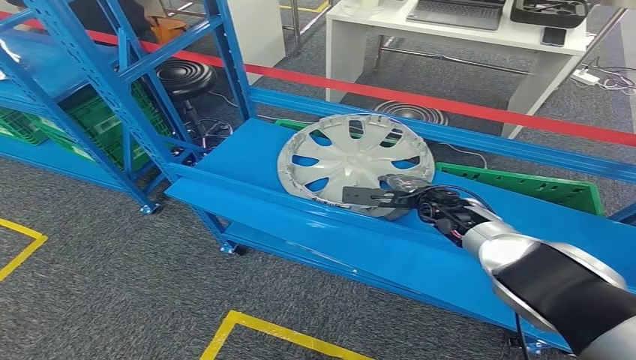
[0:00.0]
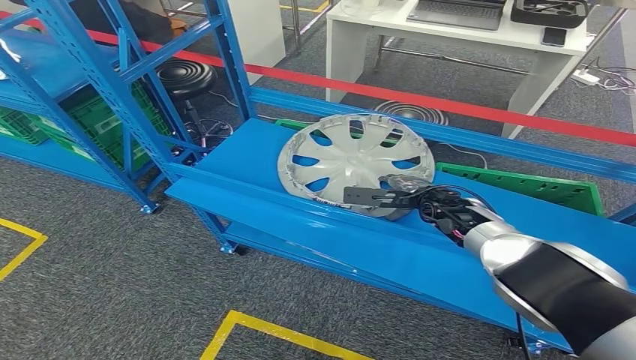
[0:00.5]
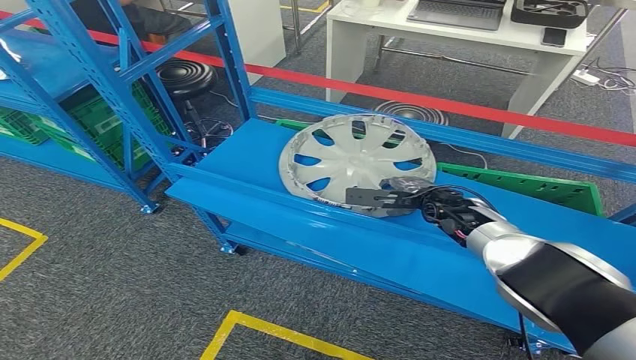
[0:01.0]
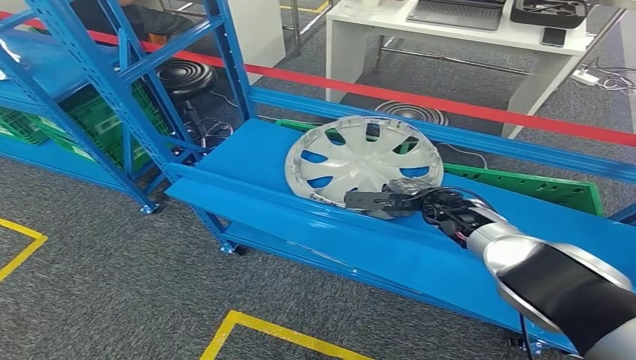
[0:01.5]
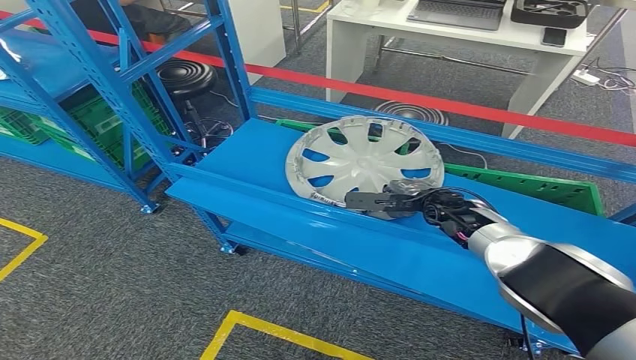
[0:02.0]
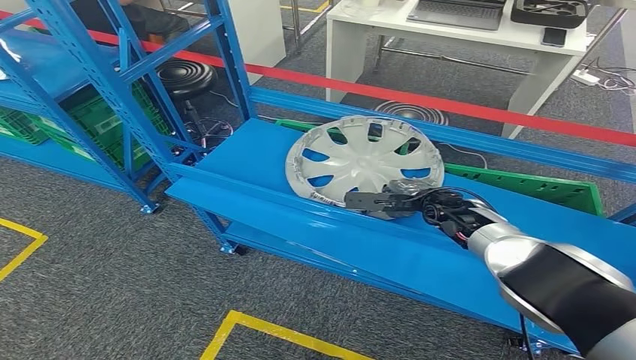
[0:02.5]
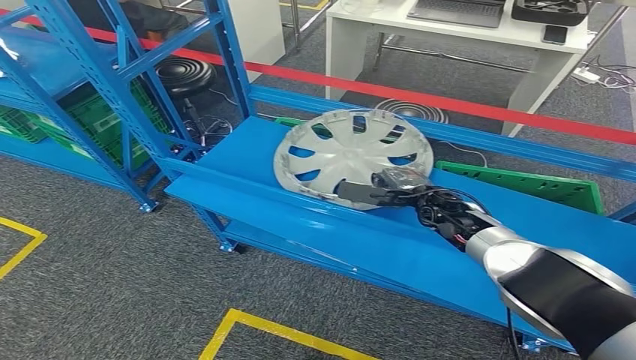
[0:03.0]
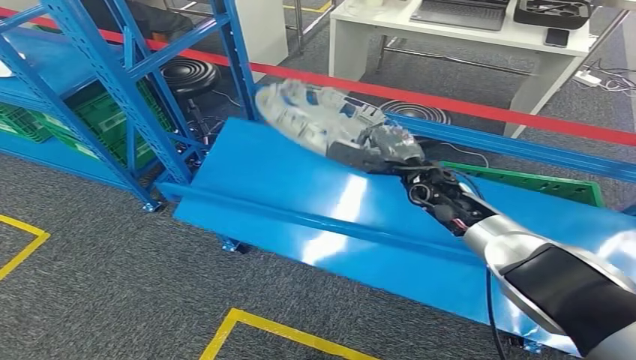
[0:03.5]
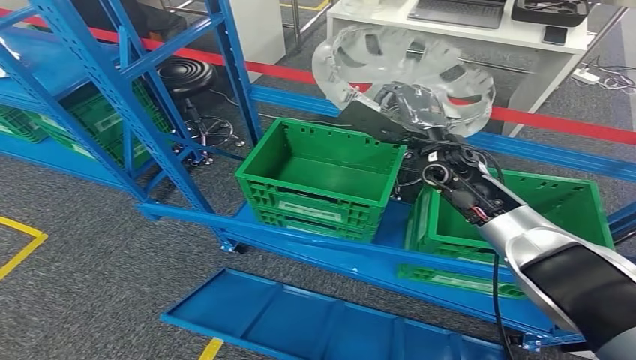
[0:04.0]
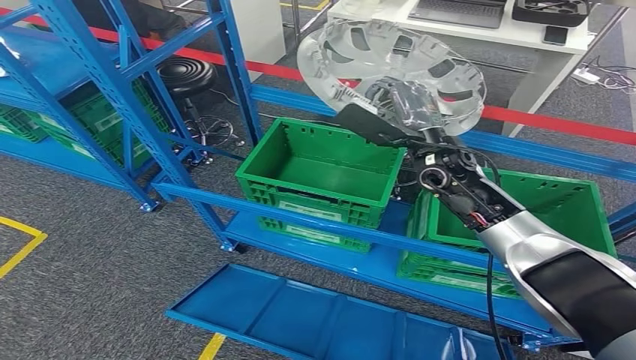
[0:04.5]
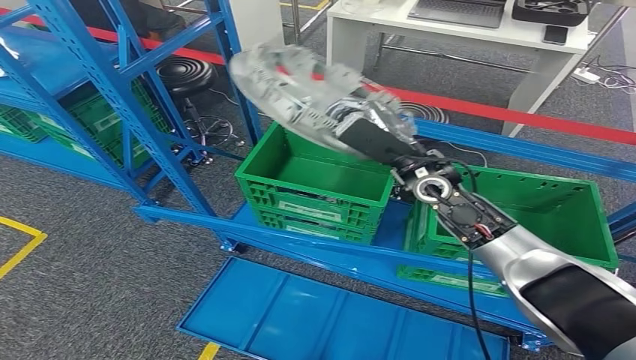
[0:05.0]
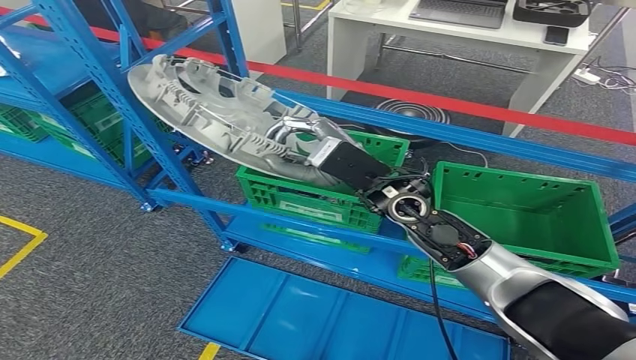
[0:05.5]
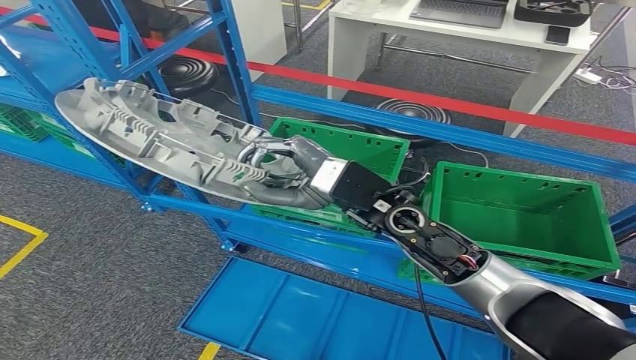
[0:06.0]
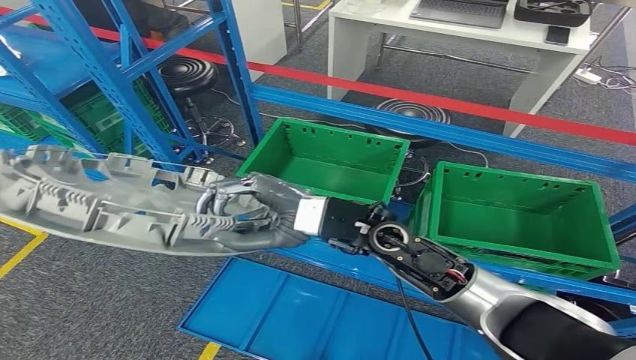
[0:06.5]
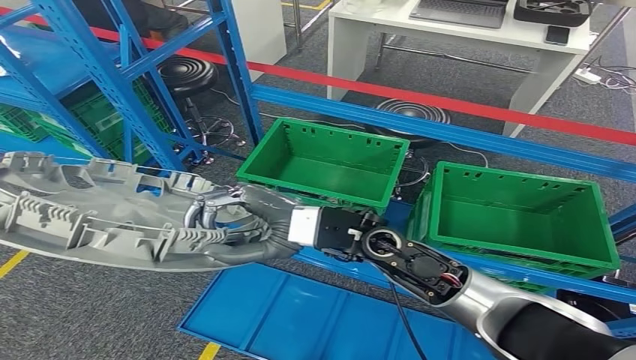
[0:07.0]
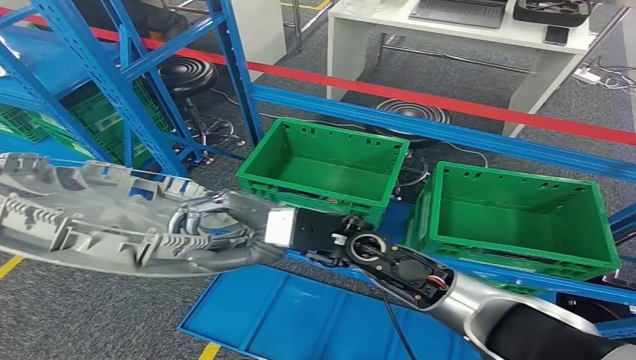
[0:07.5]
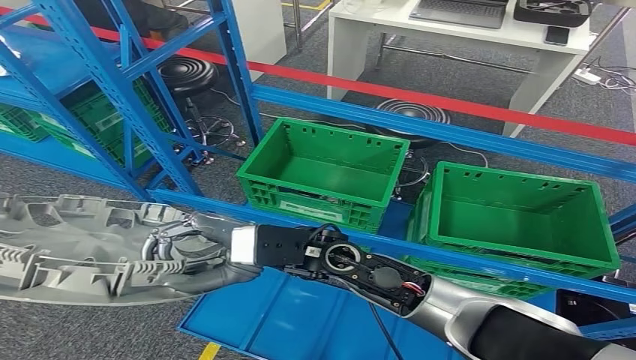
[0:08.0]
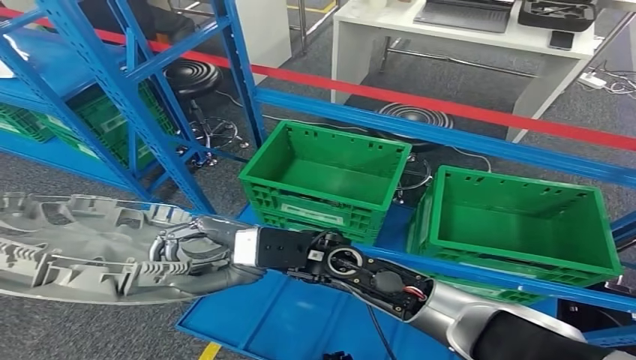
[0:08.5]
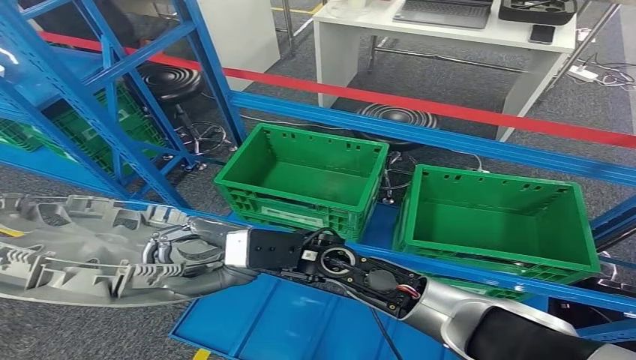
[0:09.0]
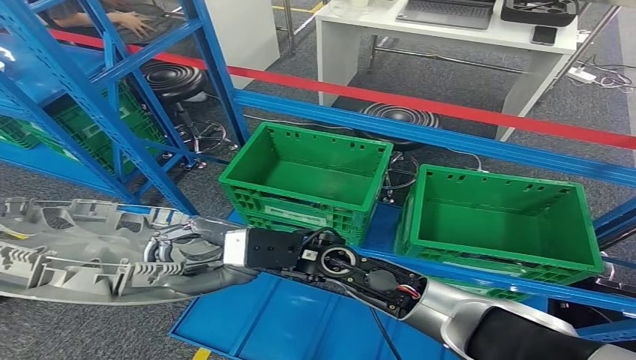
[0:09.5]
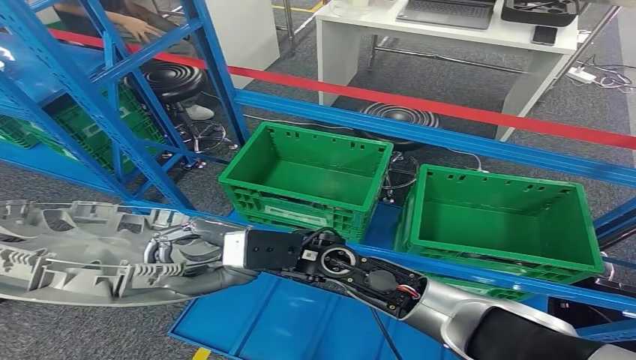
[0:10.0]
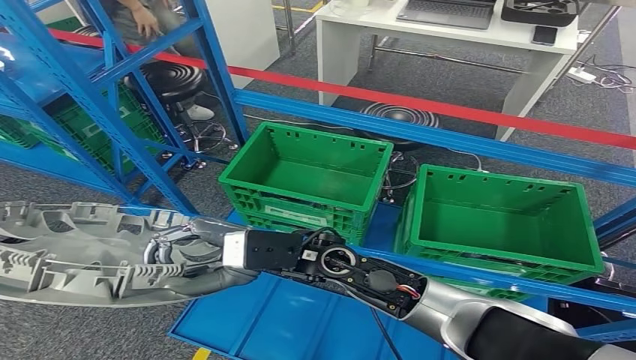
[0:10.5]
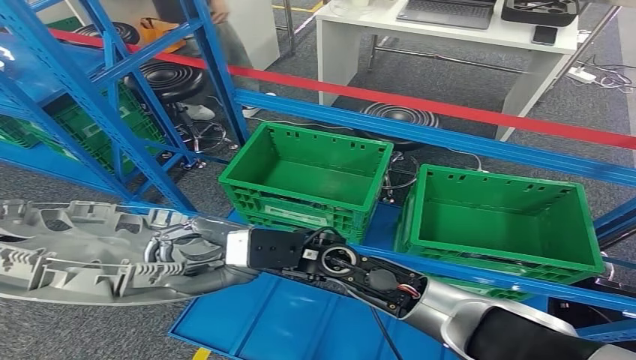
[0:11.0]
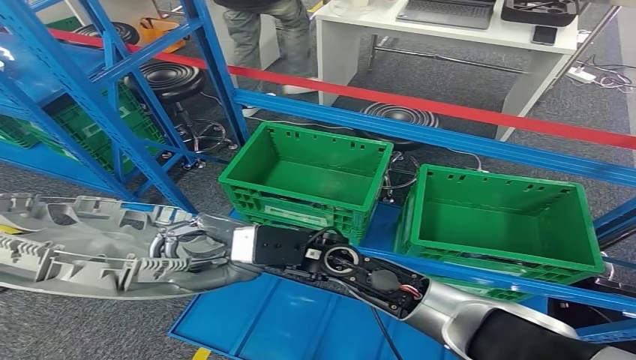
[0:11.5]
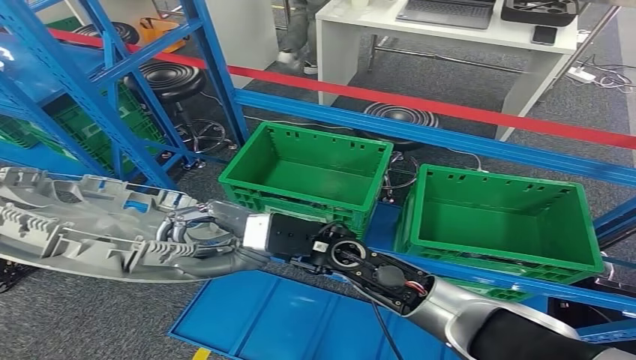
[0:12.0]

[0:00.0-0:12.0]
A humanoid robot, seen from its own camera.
Step, 0:00.0 to 0:08.0: Pick up the small component from the shelf.
0:00.0 to 0:02.0: The two hands keep their place.
0:10.0 to 0:12.0: The hands move only a little.

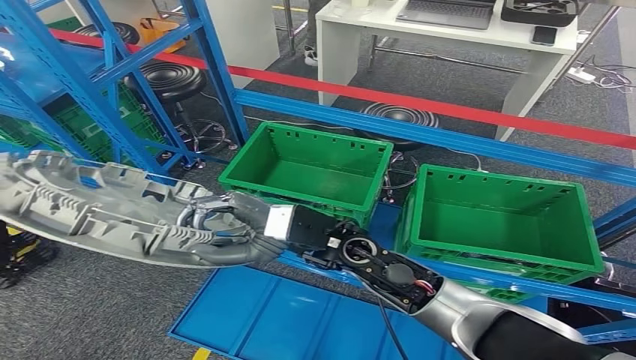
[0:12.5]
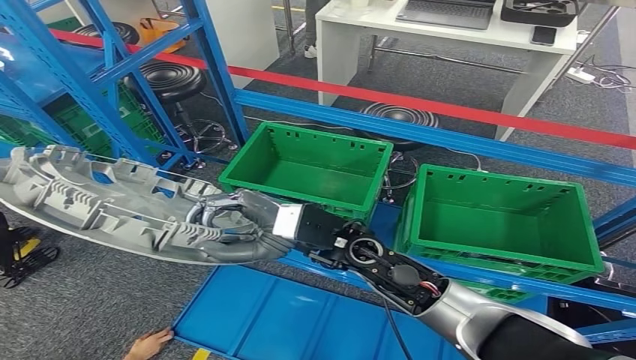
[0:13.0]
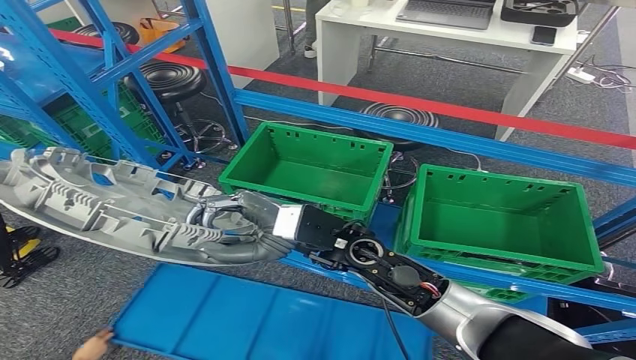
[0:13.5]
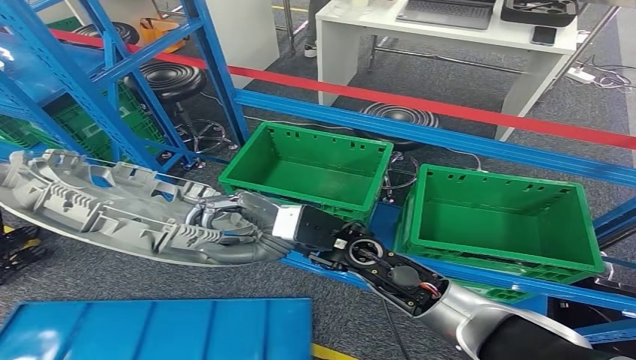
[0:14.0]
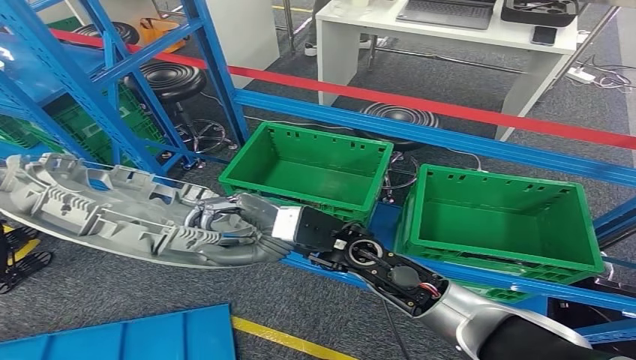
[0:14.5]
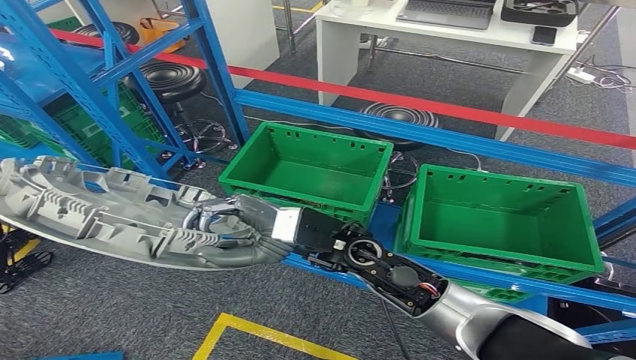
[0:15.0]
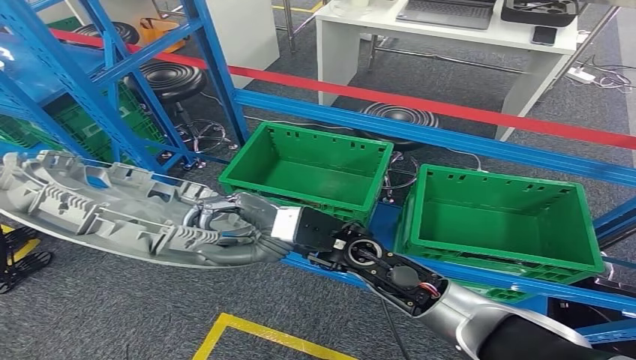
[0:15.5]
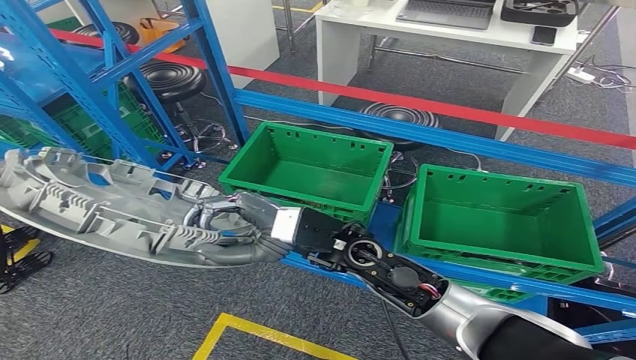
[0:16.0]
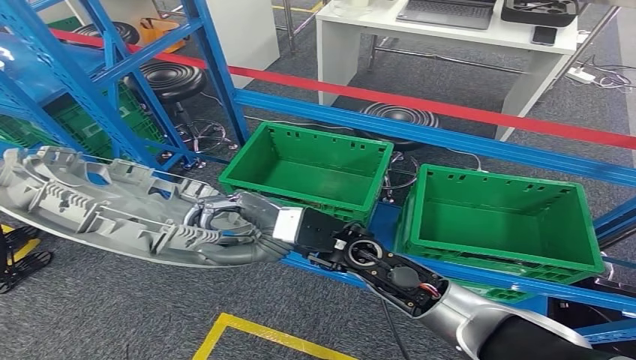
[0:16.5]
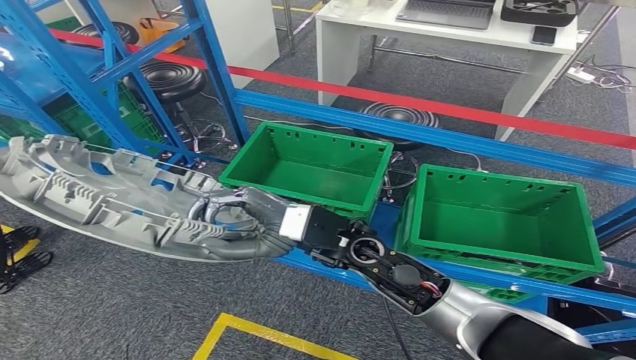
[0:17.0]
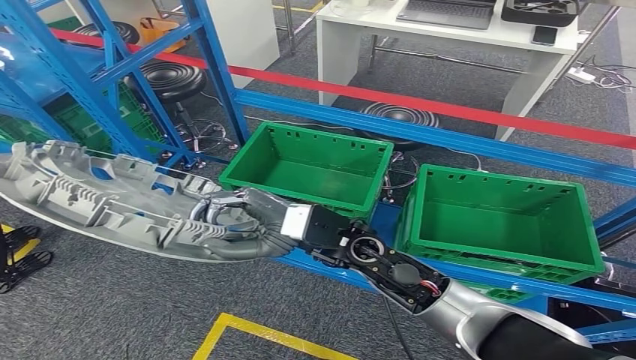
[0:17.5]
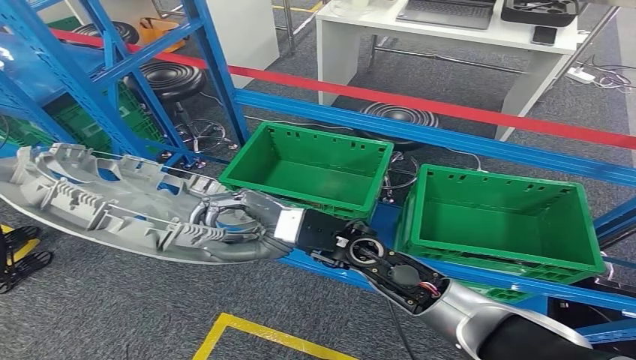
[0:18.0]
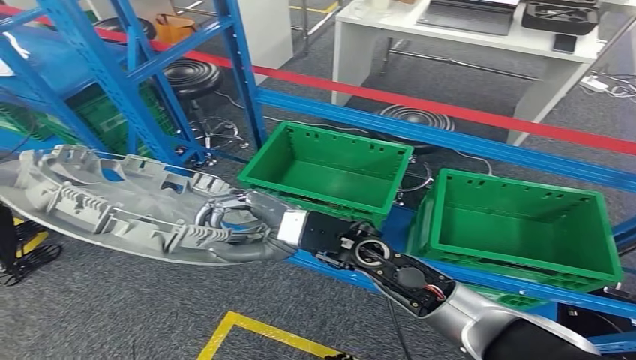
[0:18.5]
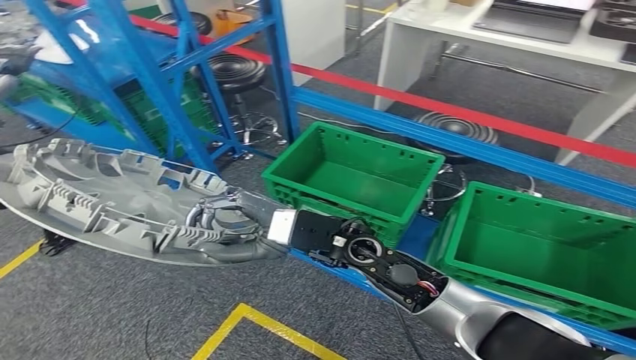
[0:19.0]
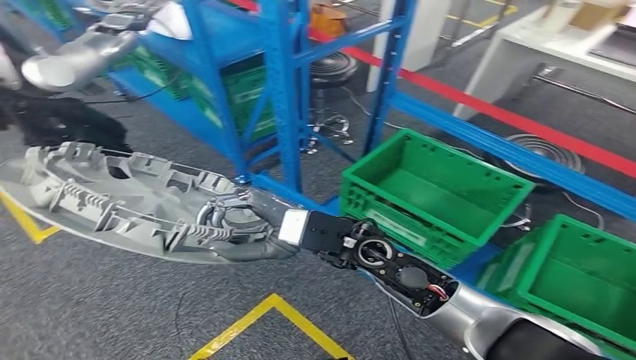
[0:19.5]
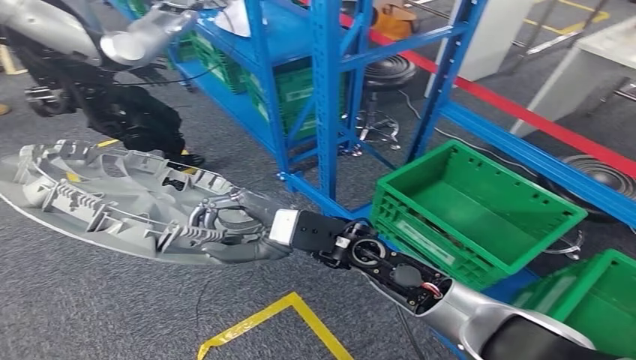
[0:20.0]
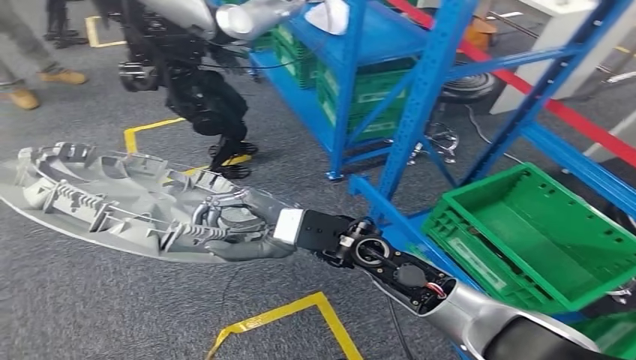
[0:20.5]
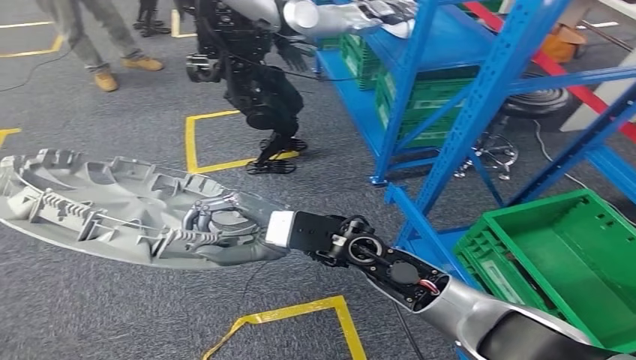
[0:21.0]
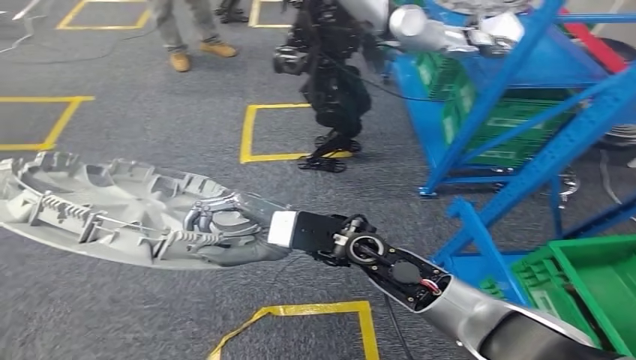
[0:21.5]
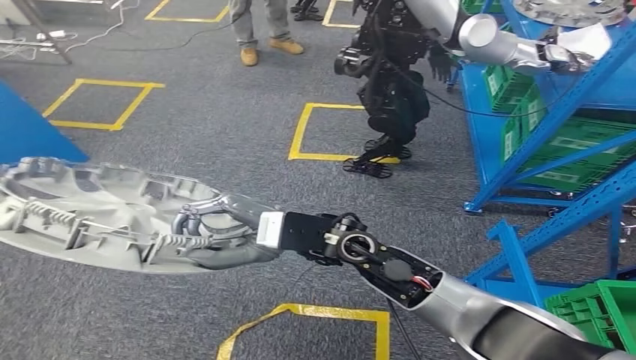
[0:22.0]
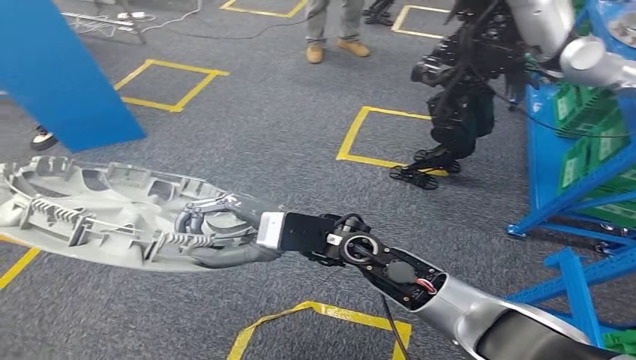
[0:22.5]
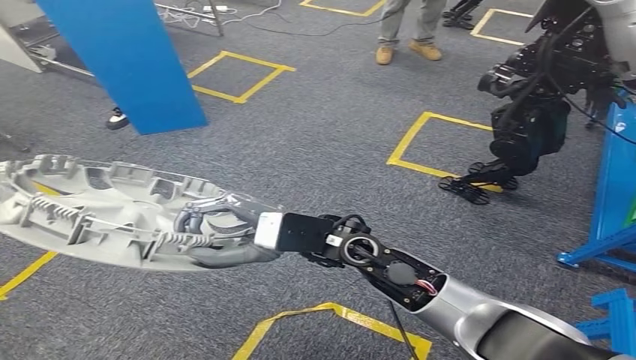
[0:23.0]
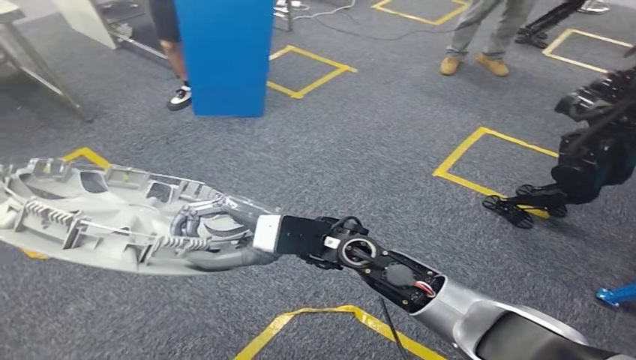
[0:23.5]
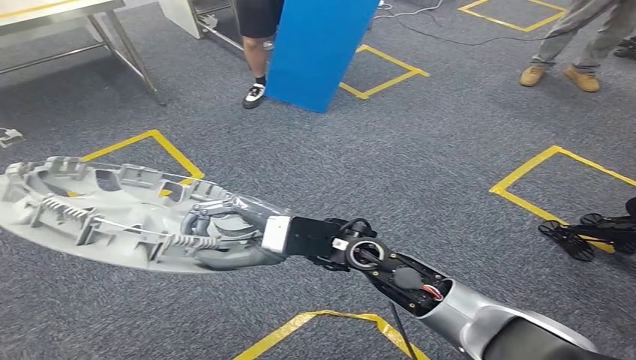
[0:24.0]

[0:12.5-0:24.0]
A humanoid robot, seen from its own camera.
0:12.5 to 0:16.5: Neither hand changes place.
